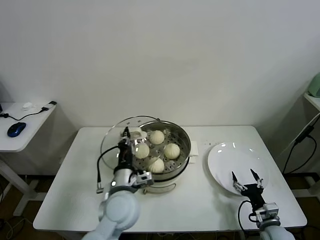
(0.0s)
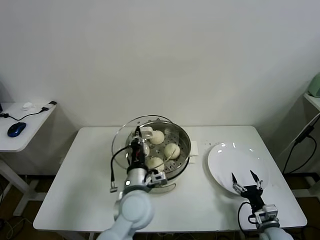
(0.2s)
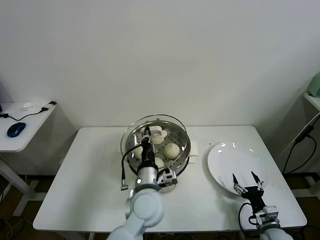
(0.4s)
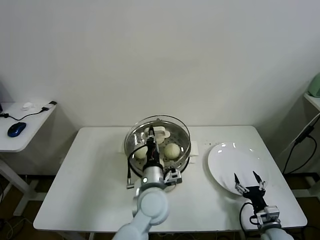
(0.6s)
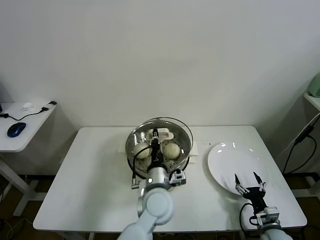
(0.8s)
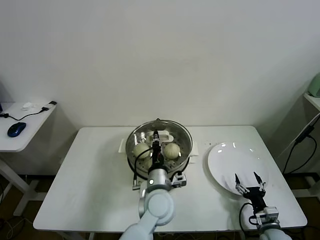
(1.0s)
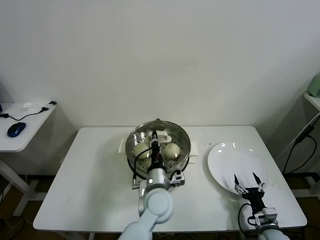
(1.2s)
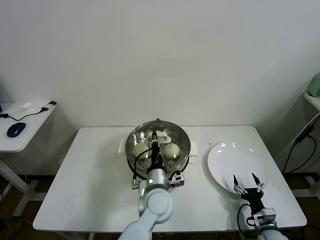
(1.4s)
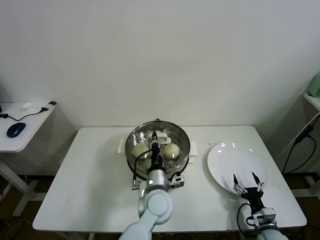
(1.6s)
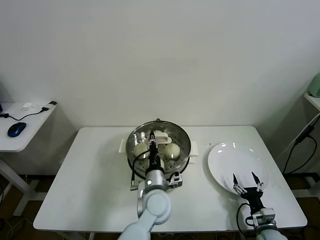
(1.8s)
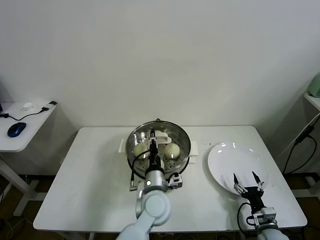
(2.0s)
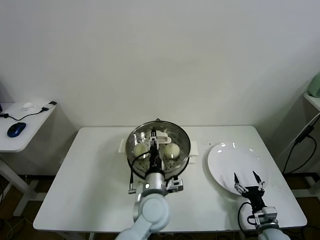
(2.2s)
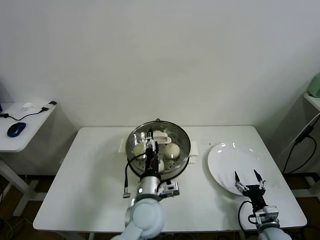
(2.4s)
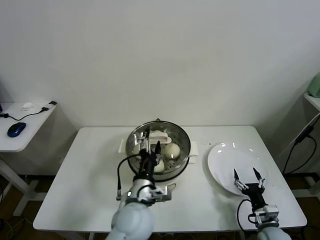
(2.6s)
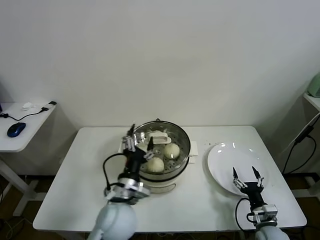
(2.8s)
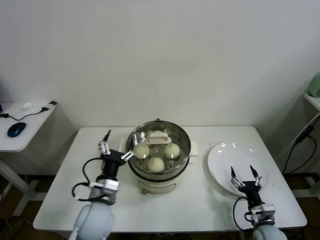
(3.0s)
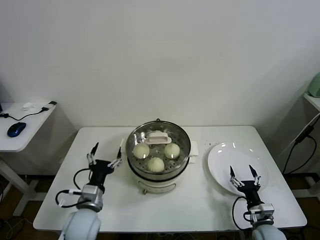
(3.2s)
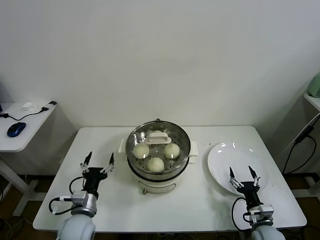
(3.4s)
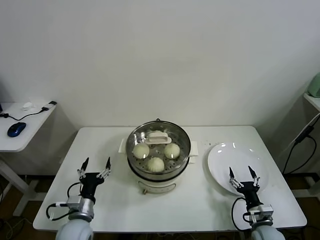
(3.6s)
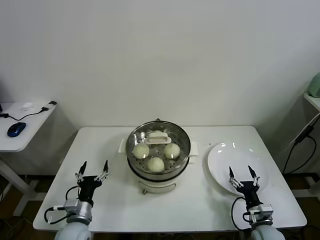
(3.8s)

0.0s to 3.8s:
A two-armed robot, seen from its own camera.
Task of the whole recording: take steamed baozi put them in steamer.
Step, 0.0s to 2.2s: Place the pot lid on the steamer with left gripper.
0.0s to 1.2s: The left gripper moves to the right, some 10 cm.
1.2s to 2.6s: The left gripper goes some 5 cm to the left, and opens.
2.6s to 3.8s: The left gripper heads to the left and downward, covering about 25 cm.
